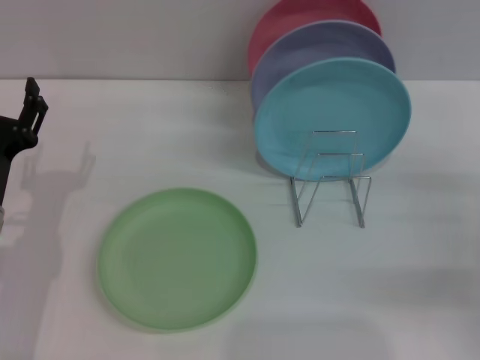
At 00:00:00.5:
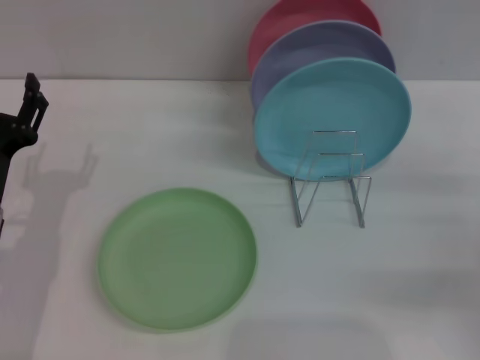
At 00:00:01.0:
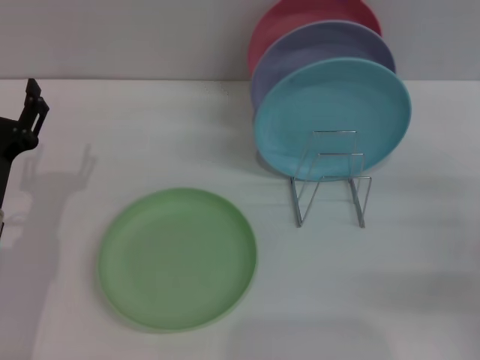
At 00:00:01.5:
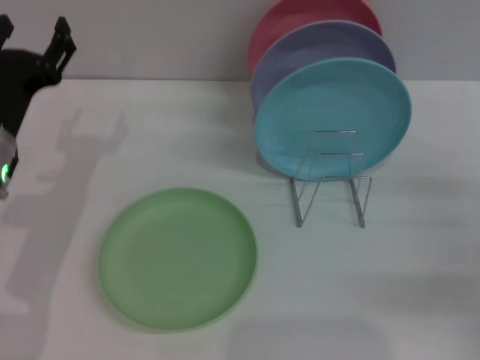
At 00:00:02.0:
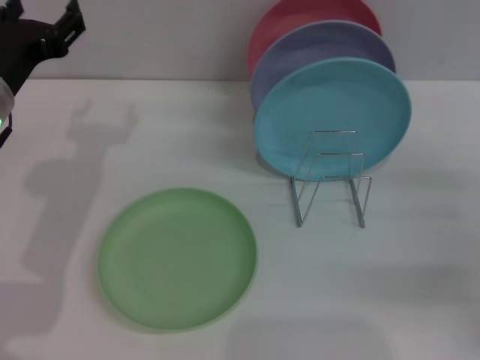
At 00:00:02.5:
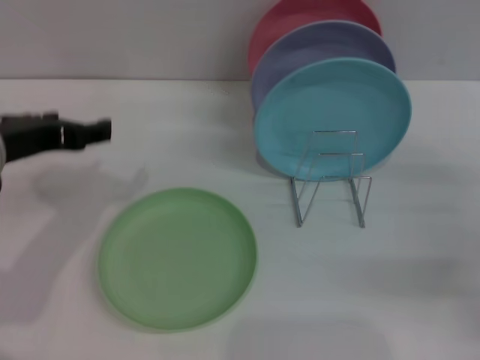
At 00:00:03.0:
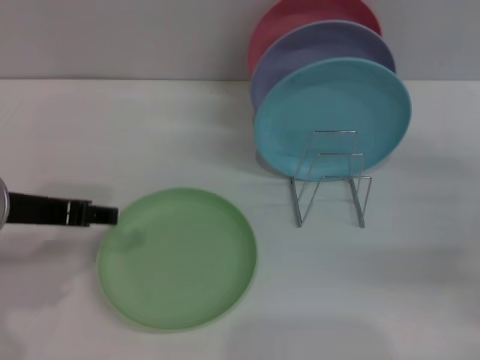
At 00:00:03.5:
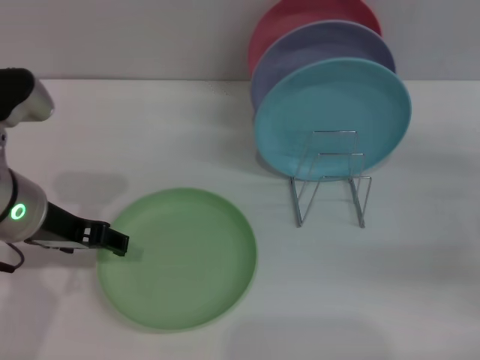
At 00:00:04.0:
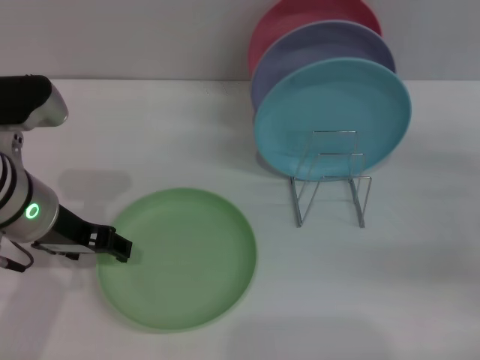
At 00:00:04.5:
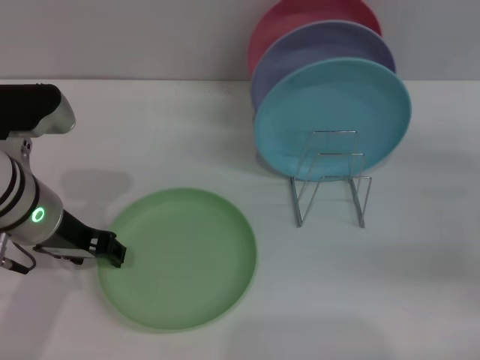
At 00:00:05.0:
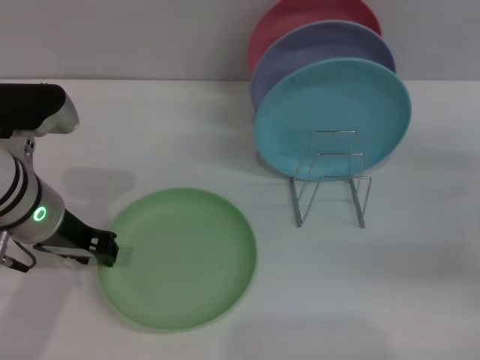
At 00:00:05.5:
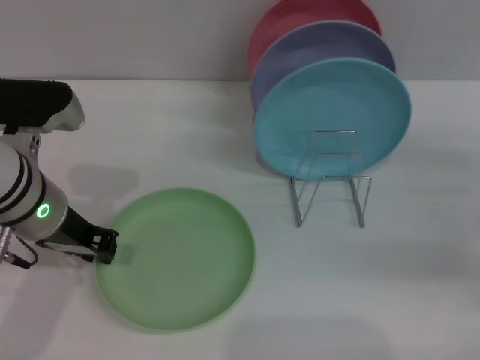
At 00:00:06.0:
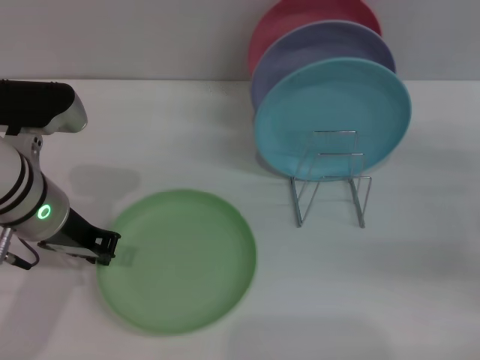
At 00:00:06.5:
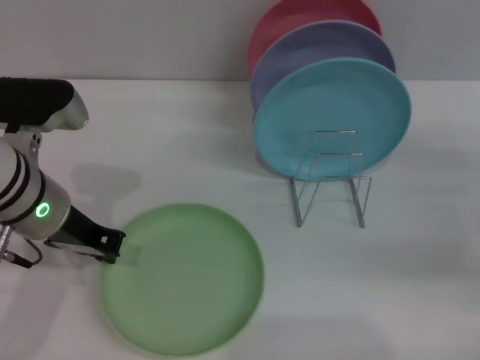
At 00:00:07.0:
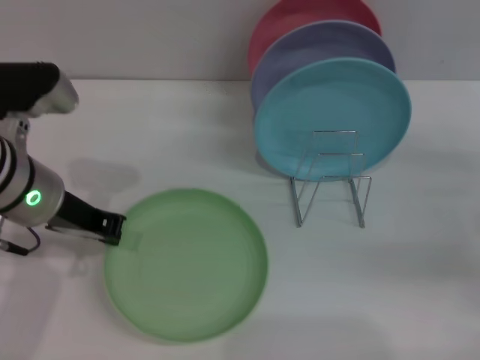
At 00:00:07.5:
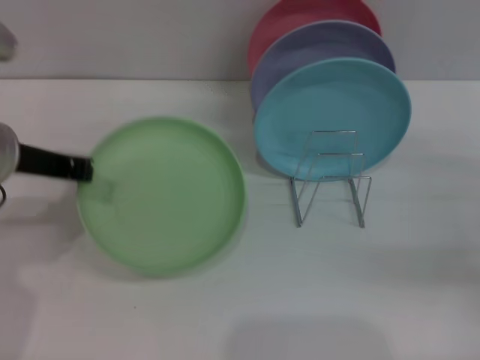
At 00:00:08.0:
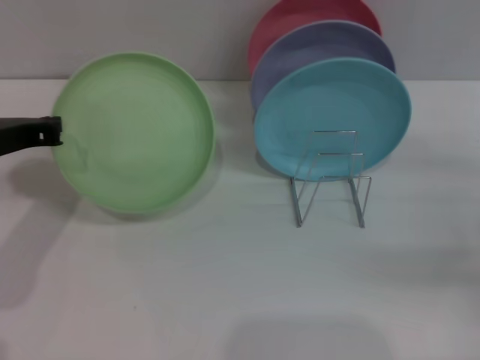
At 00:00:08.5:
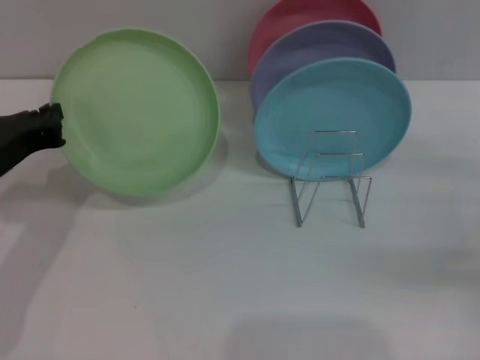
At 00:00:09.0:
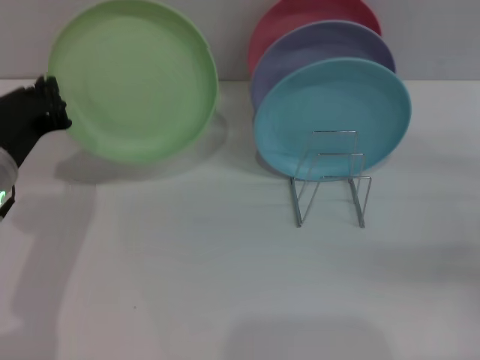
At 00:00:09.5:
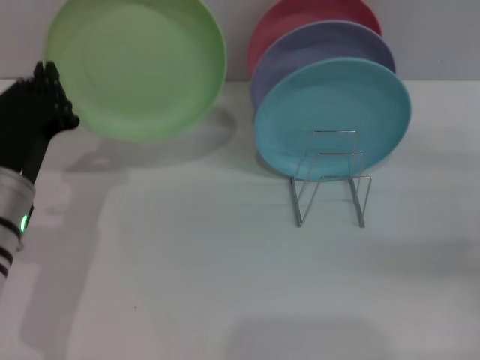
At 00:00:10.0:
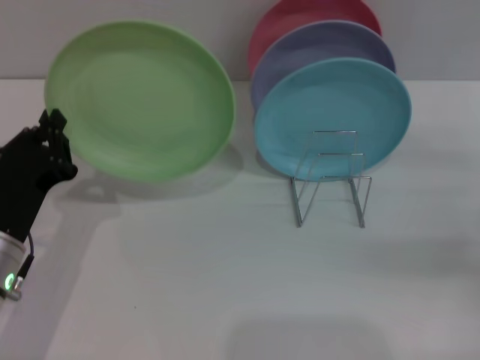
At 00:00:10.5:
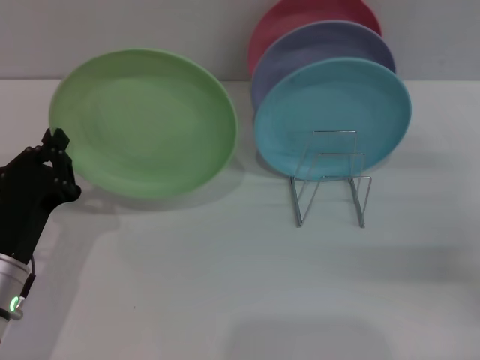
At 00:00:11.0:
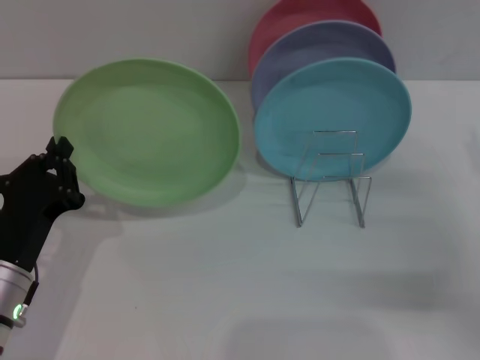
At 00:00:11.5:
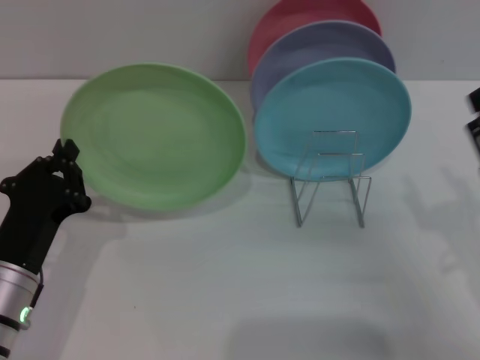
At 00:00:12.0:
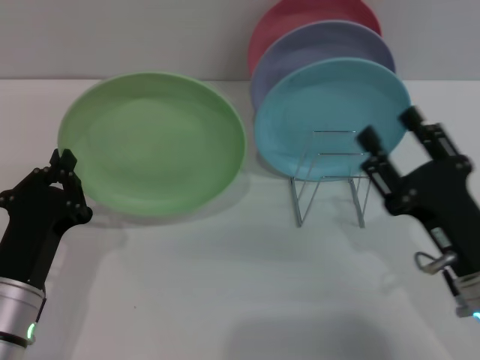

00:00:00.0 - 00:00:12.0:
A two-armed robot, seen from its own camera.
Task of the whole recording: Grip the plate with one hand, pass it to the other, then set it on the shelf.
Step, 00:00:00.0 - 00:00:07.5: Pick up the plate with the left gripper.
00:00:00.0 - 00:00:02.0: The left gripper is displaced upward and forward by some 15 cm.
00:00:04.0 - 00:00:06.0: The left gripper closes.
00:00:06.0 - 00:00:08.0: The left gripper is displaced to the left by some 5 cm.
00:00:08.0 - 00:00:10.0: The left gripper travels downward and backward by roughly 15 cm.
00:00:10.0 - 00:00:12.0: The right gripper heads to the left and backward, covering approximately 20 cm.

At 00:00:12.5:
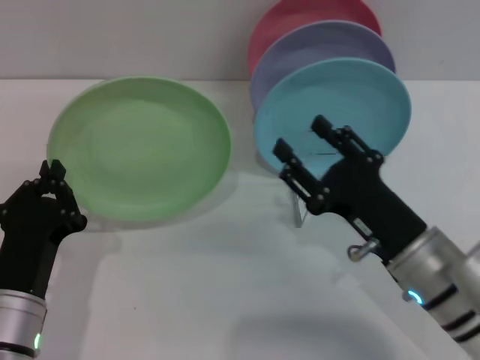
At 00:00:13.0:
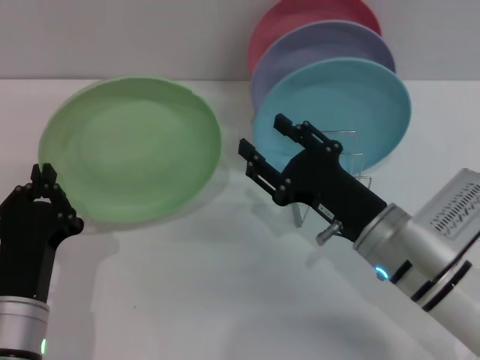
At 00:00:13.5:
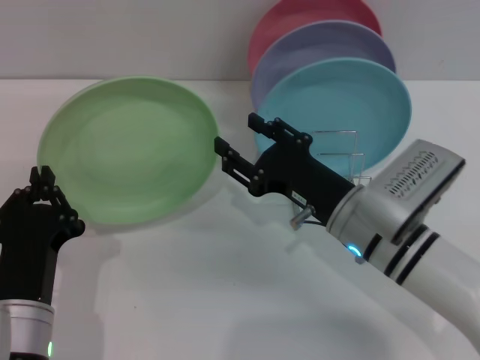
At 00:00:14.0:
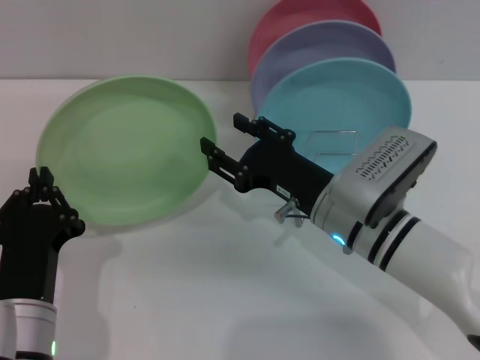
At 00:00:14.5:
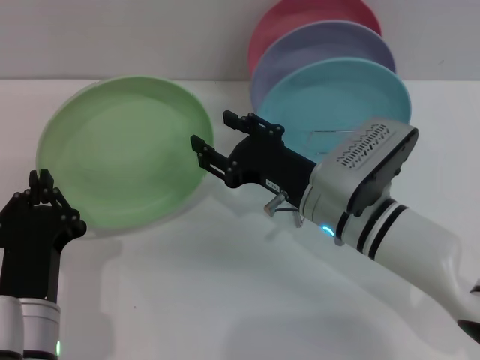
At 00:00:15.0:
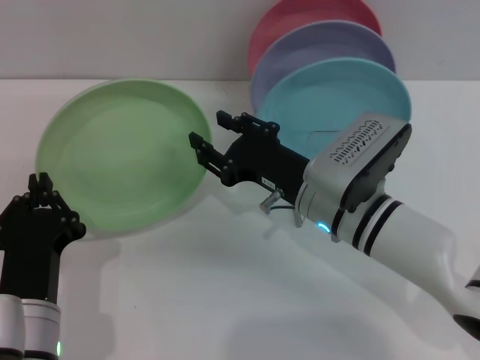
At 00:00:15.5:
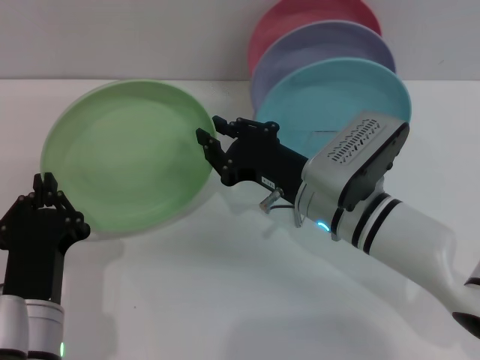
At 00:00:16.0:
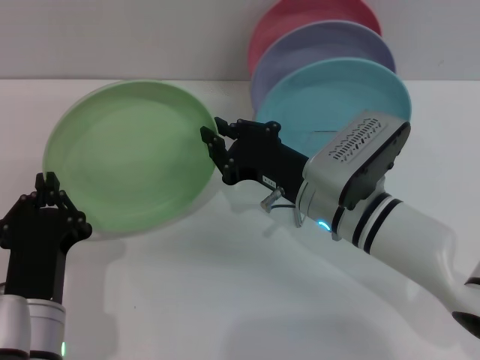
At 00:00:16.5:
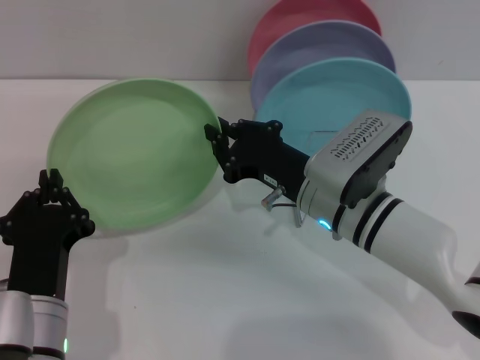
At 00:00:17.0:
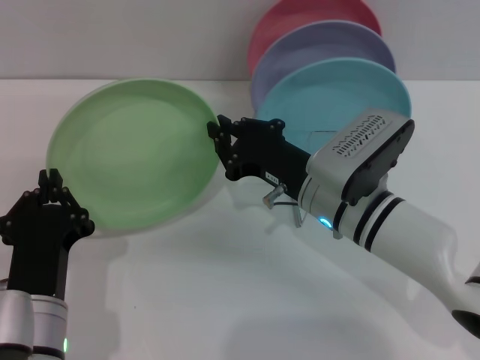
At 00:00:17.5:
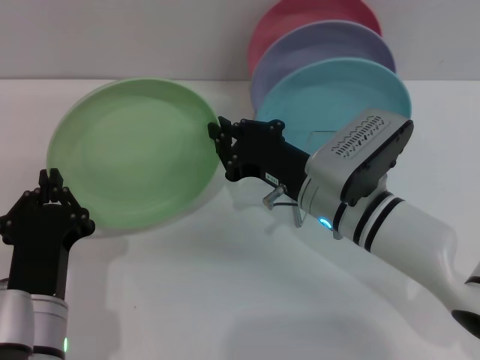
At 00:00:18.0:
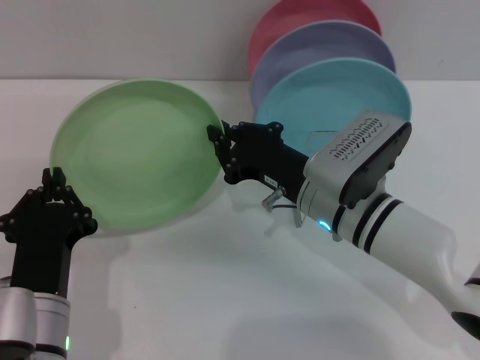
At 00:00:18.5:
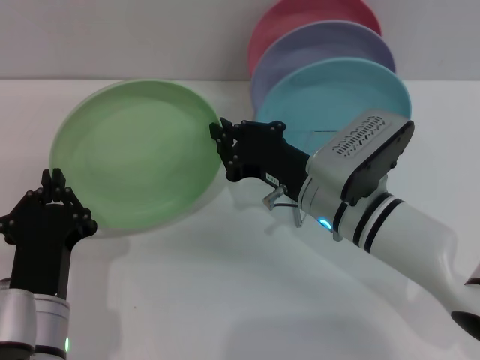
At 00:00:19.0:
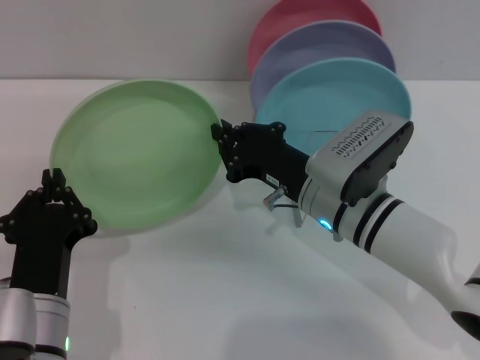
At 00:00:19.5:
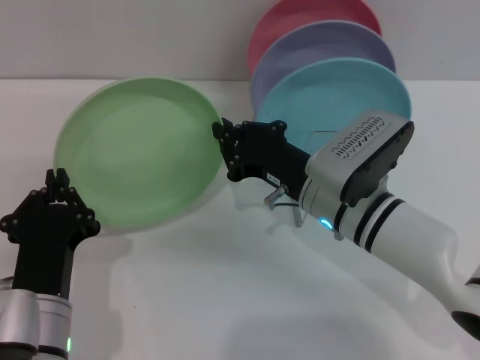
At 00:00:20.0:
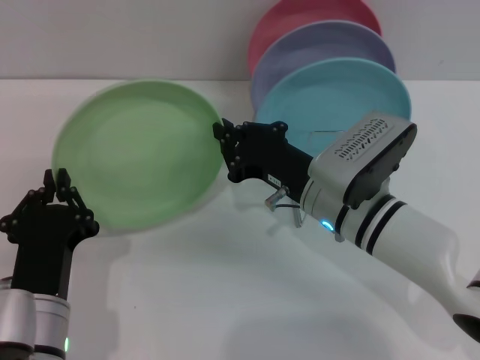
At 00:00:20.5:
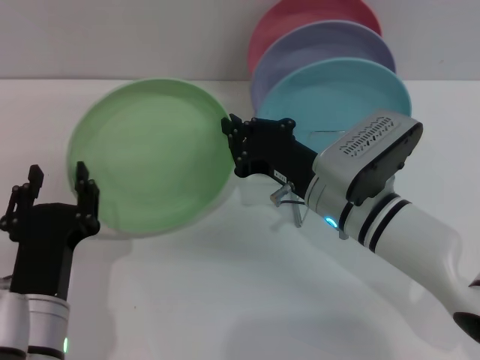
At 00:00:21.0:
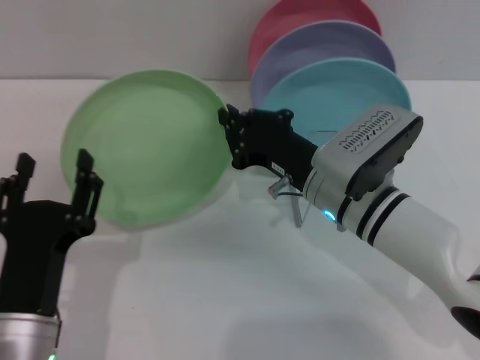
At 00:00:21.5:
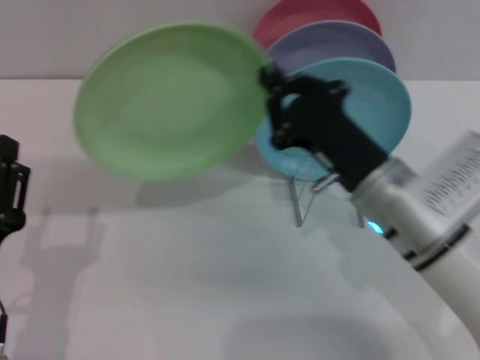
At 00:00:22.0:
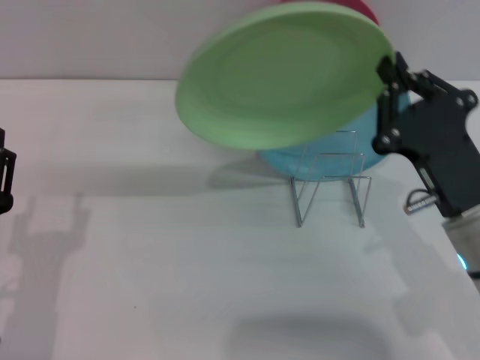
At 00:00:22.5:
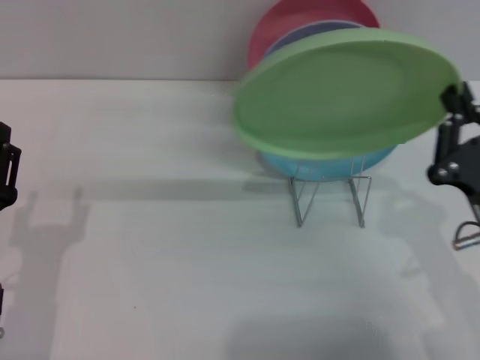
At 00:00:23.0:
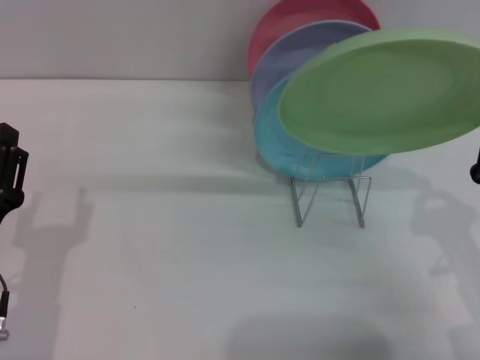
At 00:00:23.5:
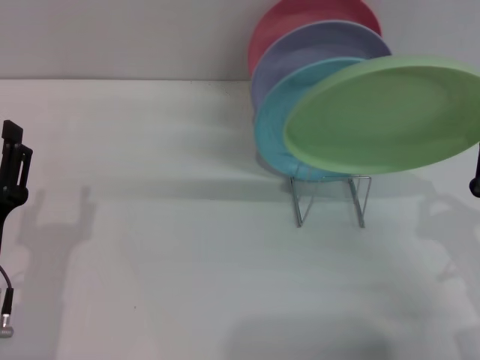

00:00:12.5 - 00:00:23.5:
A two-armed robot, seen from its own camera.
Task of the whole recording: Grip the plate with one hand, pass it to the other, then set it on the shelf.
Step, 00:00:12.5 - 00:00:20.5: Pass the plate from the left gripper to the right gripper.
00:00:12.5 - 00:00:14.5: The right gripper travels forward and to the left by roughly 10 cm.
00:00:14.5 - 00:00:16.0: The right gripper closes.
00:00:16.0 - 00:00:20.0: The two grippers keep their place.
00:00:20.0 - 00:00:21.5: The right gripper moves roughly 5 cm. Meanwhile the left gripper shifts by roughly 5 cm, and opens.
00:00:21.5 - 00:00:23.5: The right gripper travels to the right and backward by approximately 15 cm.

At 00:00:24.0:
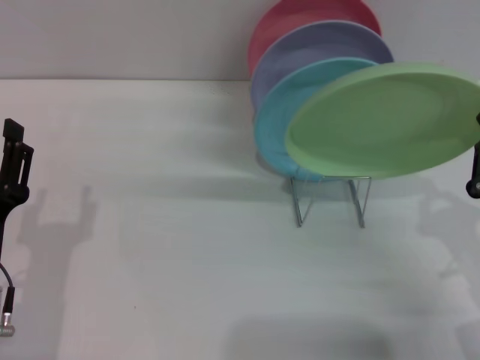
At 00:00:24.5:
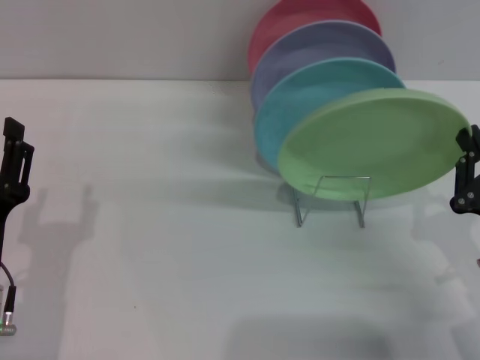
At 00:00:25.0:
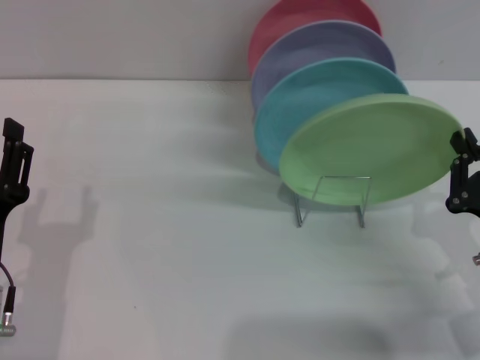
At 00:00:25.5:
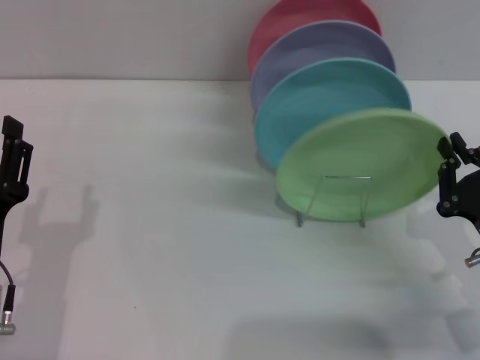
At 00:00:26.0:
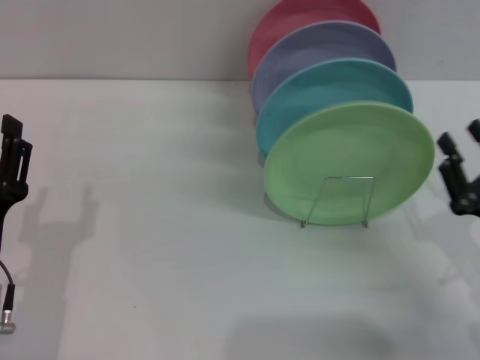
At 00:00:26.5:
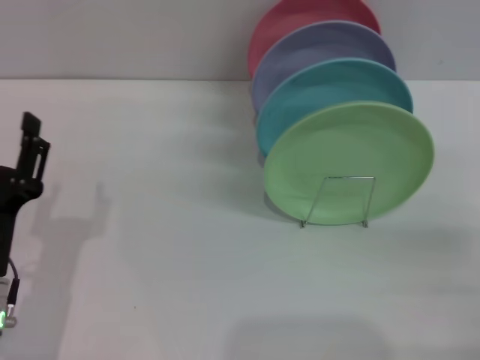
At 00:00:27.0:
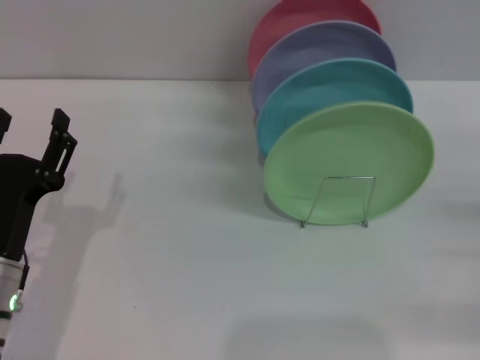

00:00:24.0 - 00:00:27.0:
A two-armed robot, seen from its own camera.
Task of the whole recording: Grip the plate with one hand, pass it to the other, then set it on the shelf.
00:00:24.0 - 00:00:25.5: There are only small adjustments of the grippers.
00:00:25.5 - 00:00:27.0: The right gripper goes about 10 cm to the right, and opens up.
